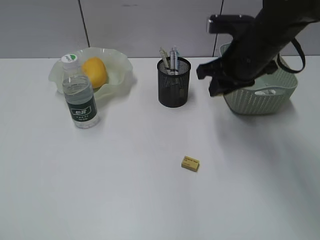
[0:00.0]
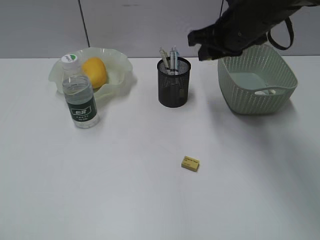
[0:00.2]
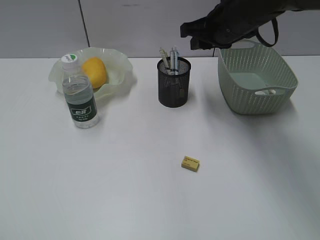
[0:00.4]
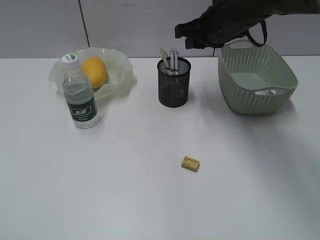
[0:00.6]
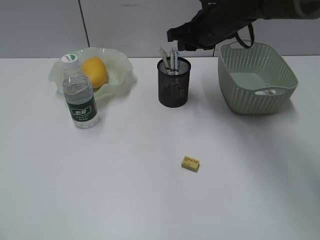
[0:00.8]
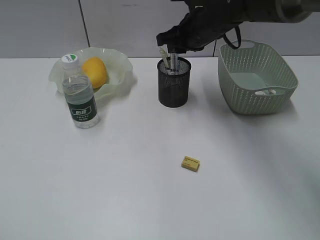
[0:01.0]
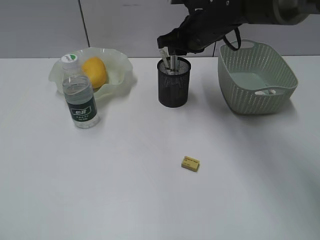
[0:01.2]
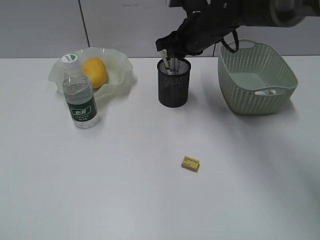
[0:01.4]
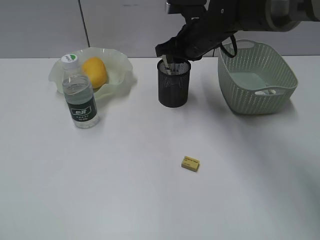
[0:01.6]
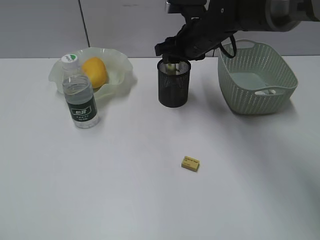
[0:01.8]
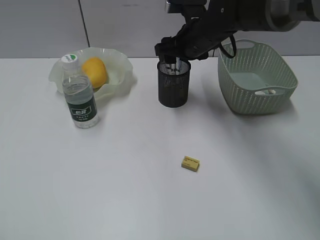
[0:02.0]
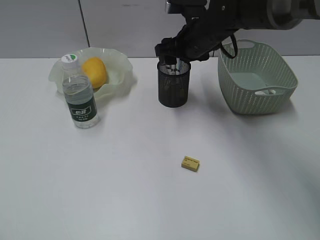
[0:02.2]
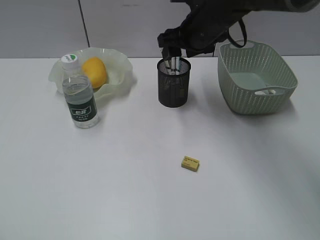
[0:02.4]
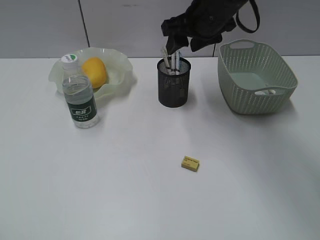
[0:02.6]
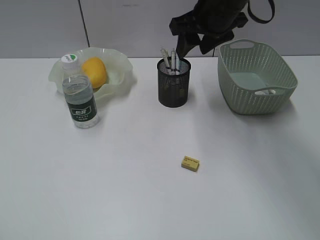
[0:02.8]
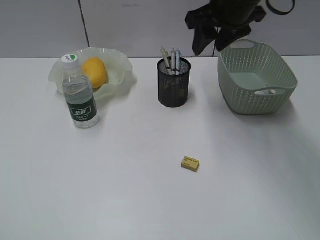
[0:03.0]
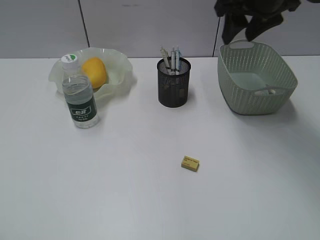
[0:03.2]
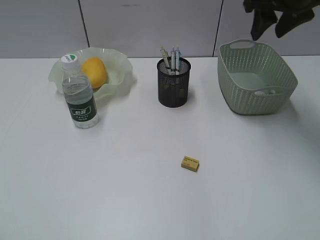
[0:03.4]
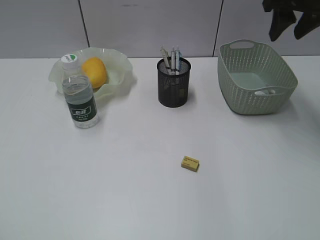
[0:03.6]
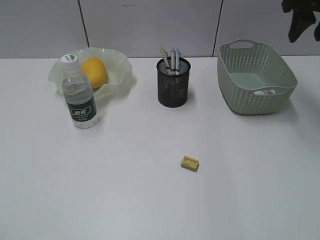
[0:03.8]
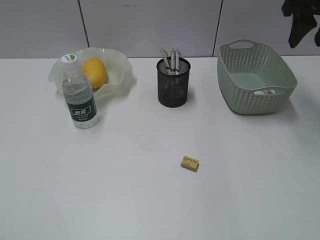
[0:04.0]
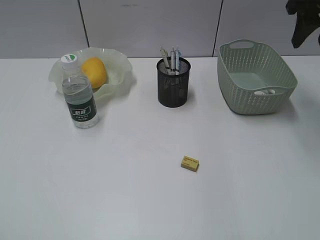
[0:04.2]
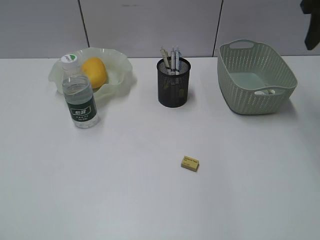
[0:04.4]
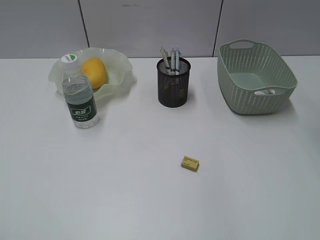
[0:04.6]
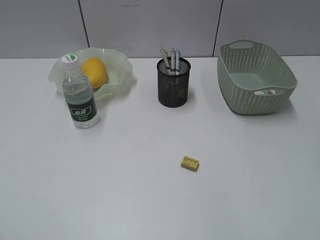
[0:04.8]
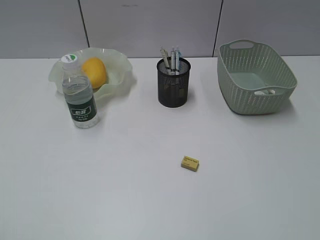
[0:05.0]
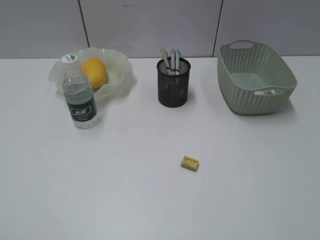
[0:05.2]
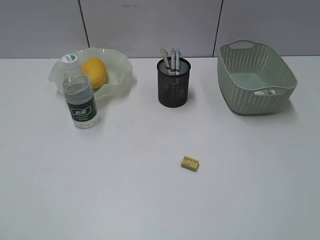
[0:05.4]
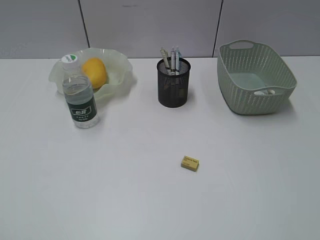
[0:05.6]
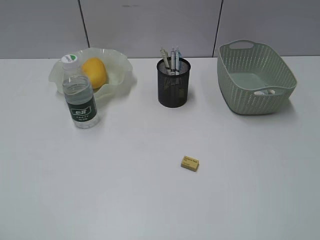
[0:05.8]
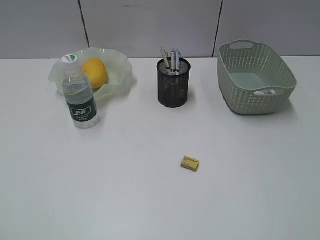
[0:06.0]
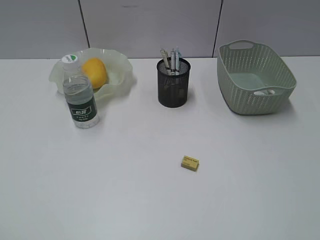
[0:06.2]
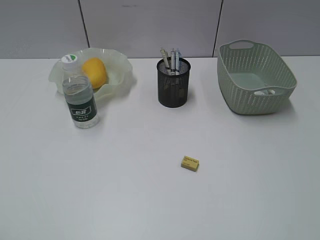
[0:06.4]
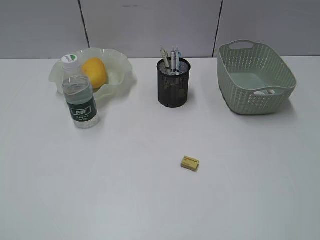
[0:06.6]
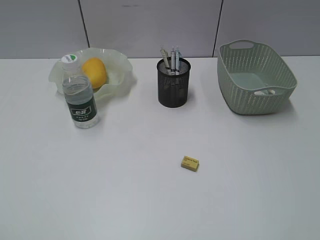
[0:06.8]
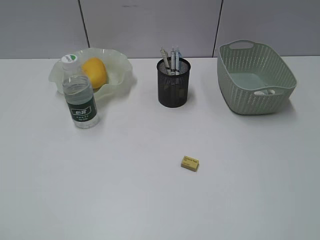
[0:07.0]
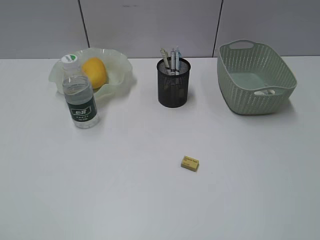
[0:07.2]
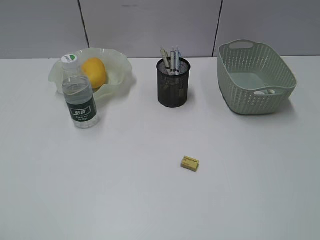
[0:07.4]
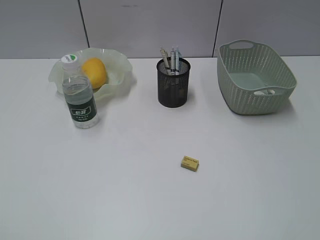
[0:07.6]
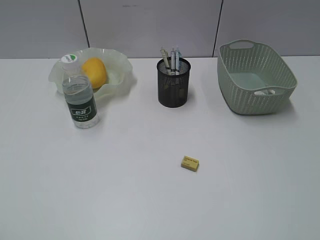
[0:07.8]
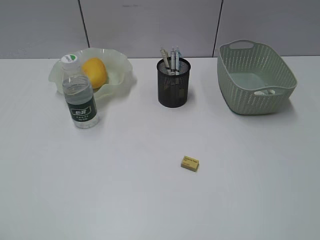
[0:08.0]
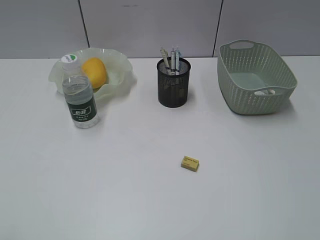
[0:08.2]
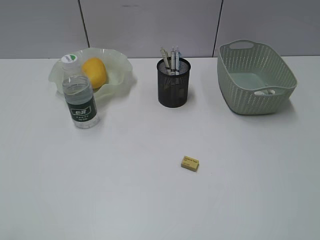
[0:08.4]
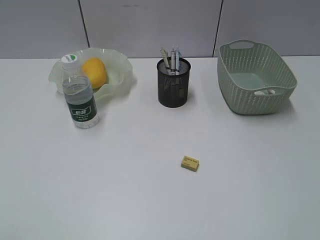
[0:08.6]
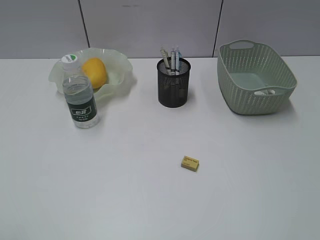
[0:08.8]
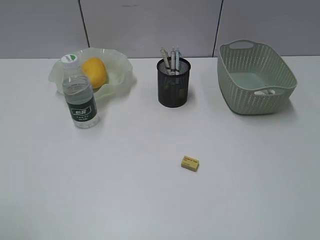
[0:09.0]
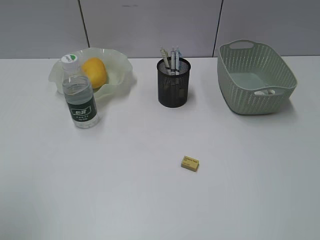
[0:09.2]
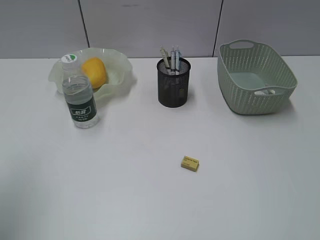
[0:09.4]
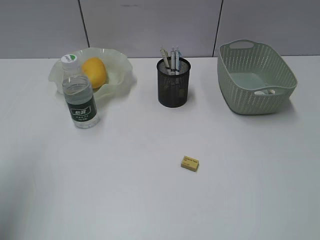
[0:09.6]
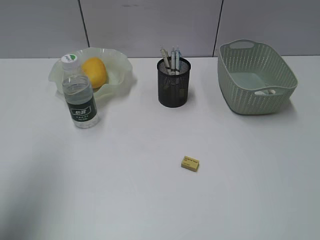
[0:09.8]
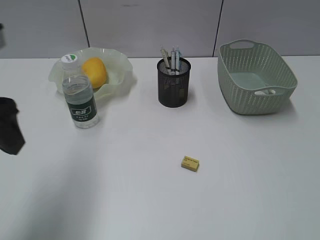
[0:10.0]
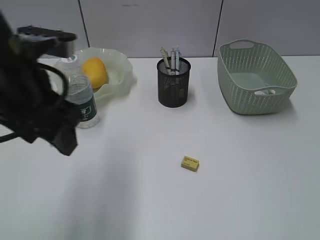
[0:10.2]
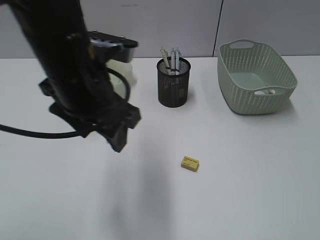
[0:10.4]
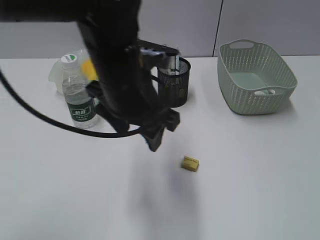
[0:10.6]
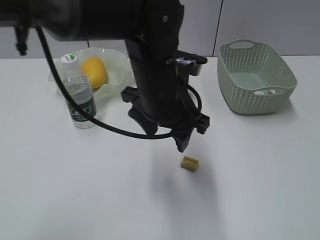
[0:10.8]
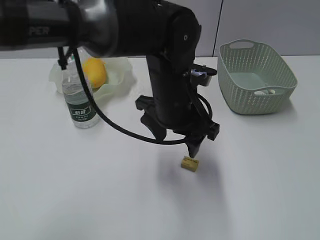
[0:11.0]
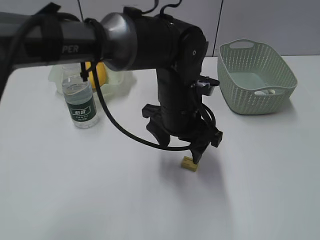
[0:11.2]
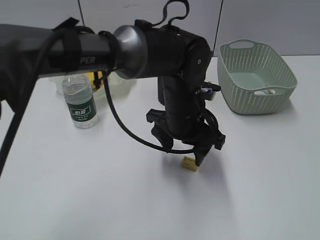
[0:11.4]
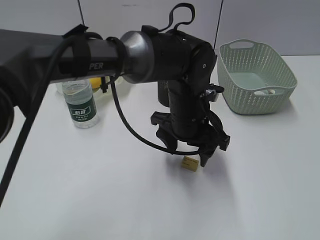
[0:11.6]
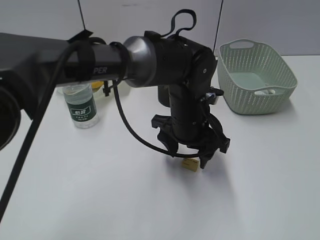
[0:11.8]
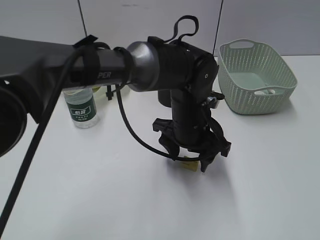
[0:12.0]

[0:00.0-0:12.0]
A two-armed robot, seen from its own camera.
Step, 0:00.0 to 0:02.0: Place the eraser in pen holder with right gripper.
0:00.0 to 0:01.6: The right gripper shifts approximately 10 cm forward and to the left.
0:01.6 to 0:03.0: The right gripper travels upward by about 10 cm, and opens its fingers.
0:03.0 to 0:04.4: The right gripper travels to the right by some 15 cm.
0:04.4 to 0:06.0: The right gripper moves backward, about 35 cm.
0:06.0 to 0:07.6: The two grippers keep their place.
0:09.0 to 0:10.4: The left gripper travels forward and to the right by approximately 30 cm.
0:10.4 to 0:12.0: The left gripper shifts some 20 cm to the right and downward.

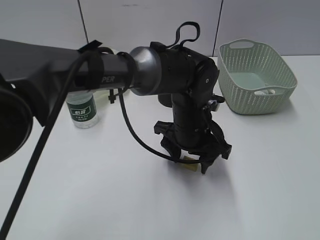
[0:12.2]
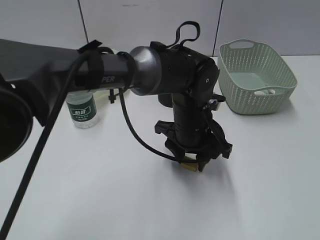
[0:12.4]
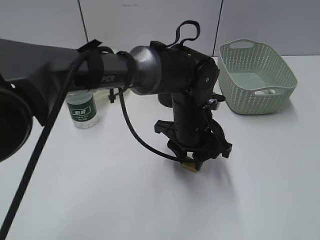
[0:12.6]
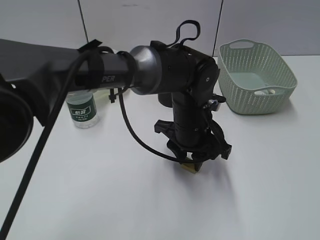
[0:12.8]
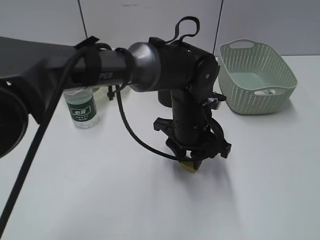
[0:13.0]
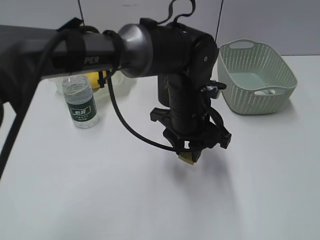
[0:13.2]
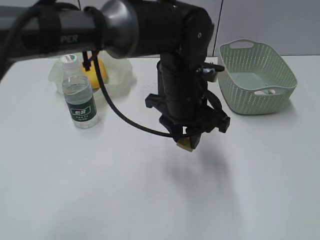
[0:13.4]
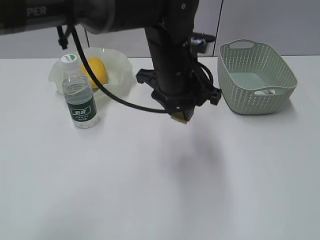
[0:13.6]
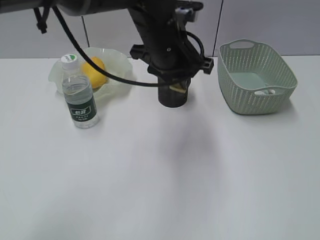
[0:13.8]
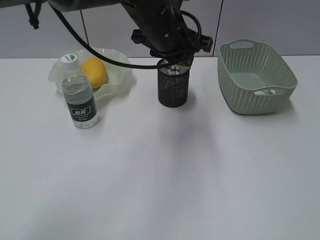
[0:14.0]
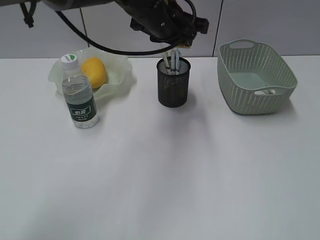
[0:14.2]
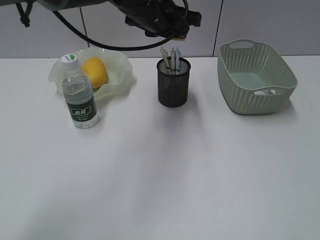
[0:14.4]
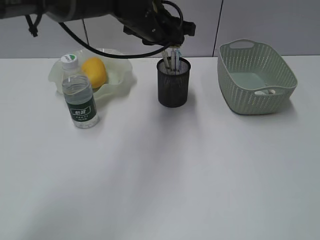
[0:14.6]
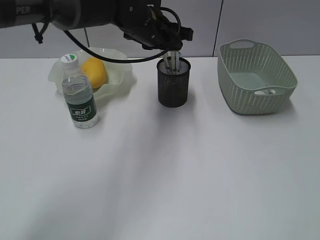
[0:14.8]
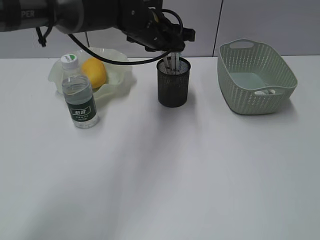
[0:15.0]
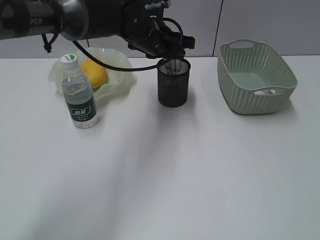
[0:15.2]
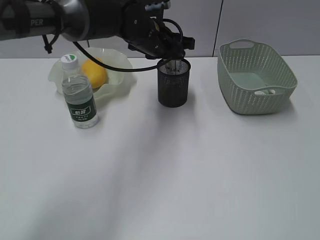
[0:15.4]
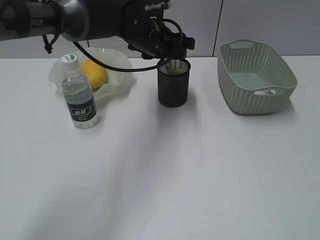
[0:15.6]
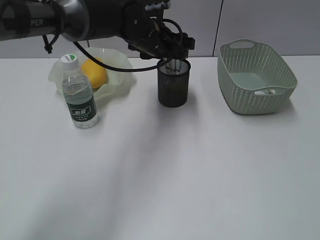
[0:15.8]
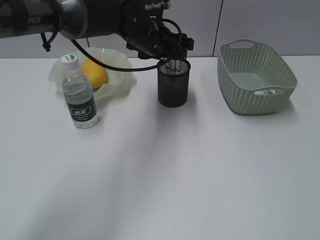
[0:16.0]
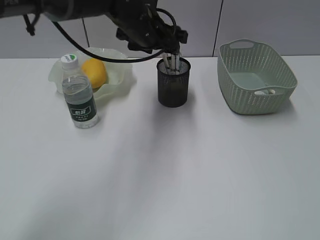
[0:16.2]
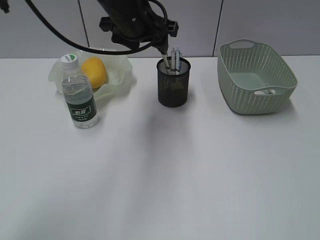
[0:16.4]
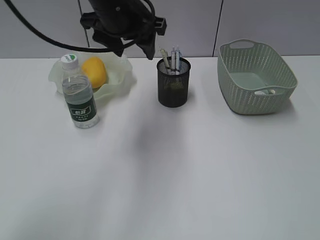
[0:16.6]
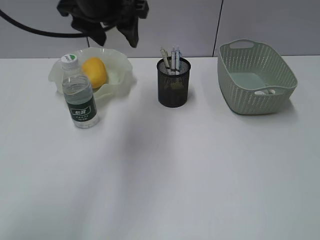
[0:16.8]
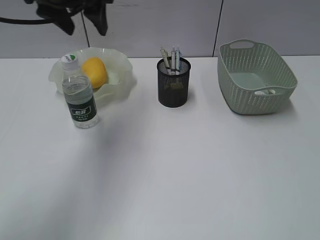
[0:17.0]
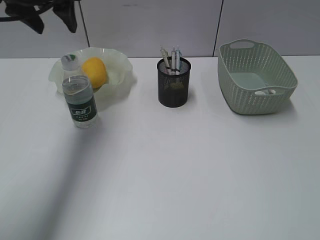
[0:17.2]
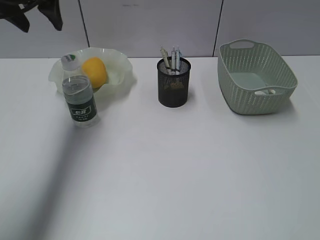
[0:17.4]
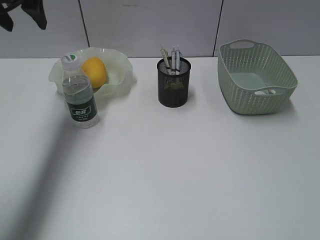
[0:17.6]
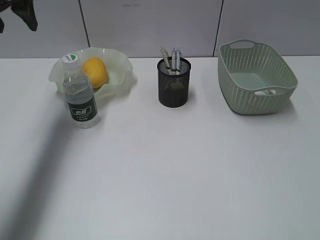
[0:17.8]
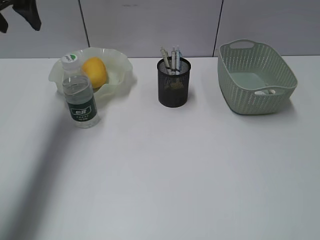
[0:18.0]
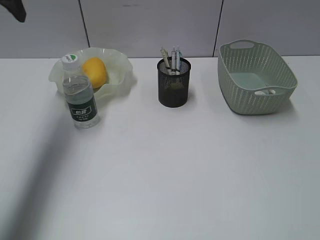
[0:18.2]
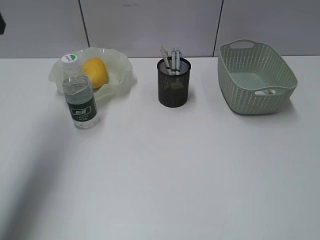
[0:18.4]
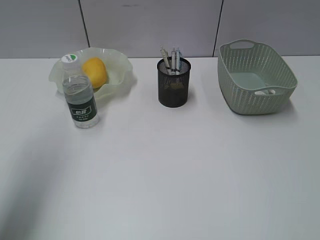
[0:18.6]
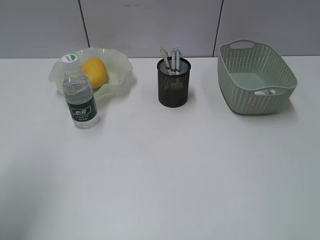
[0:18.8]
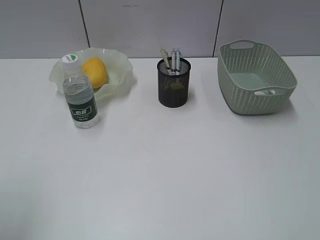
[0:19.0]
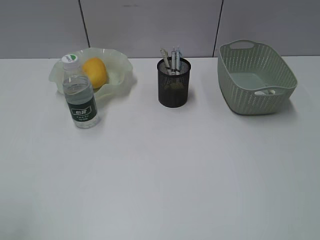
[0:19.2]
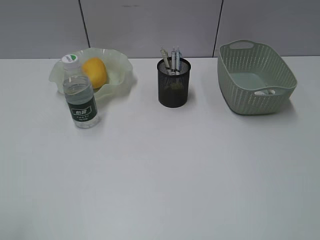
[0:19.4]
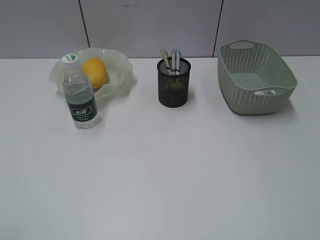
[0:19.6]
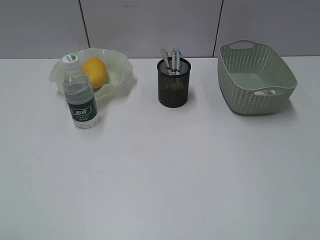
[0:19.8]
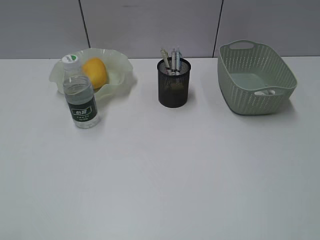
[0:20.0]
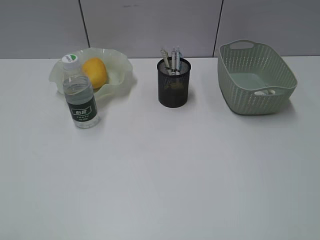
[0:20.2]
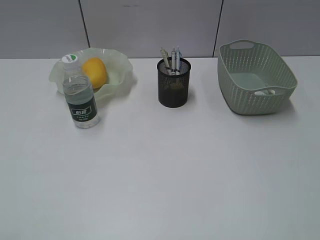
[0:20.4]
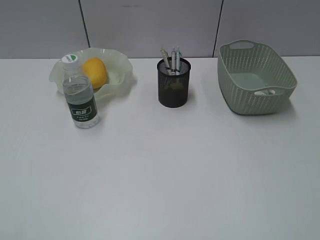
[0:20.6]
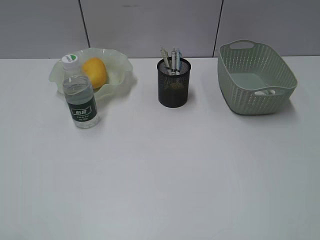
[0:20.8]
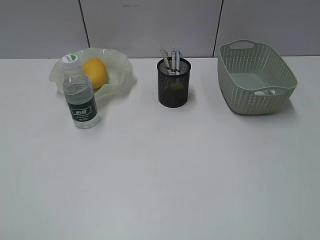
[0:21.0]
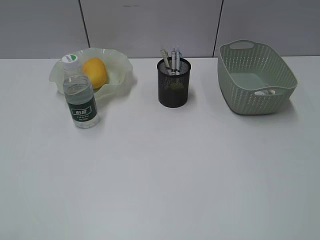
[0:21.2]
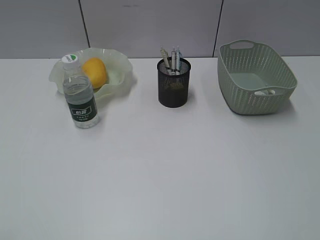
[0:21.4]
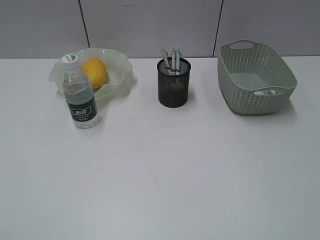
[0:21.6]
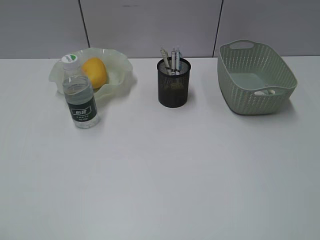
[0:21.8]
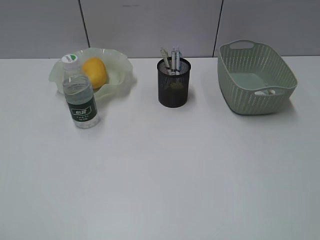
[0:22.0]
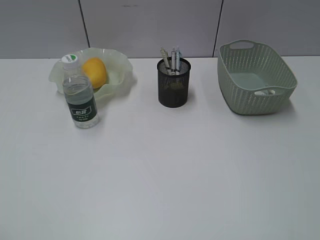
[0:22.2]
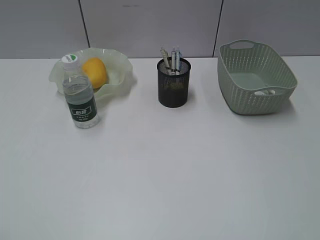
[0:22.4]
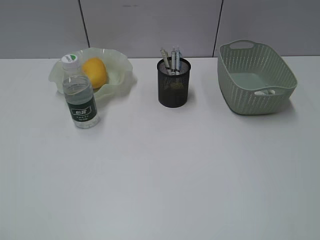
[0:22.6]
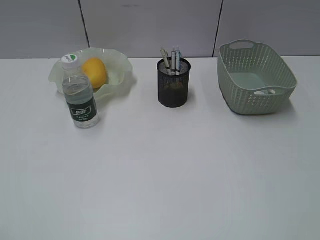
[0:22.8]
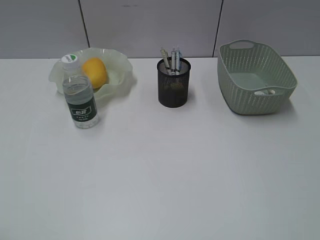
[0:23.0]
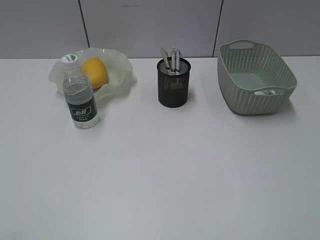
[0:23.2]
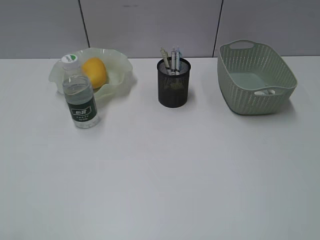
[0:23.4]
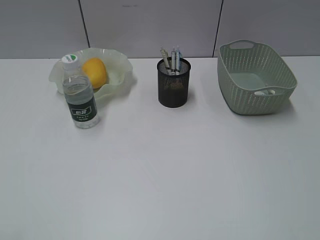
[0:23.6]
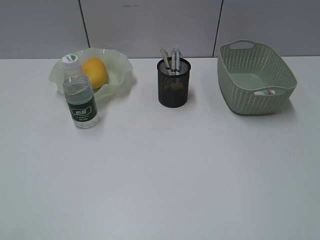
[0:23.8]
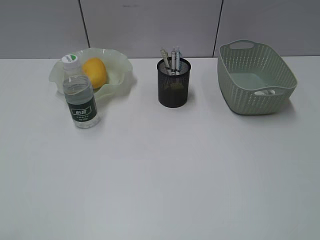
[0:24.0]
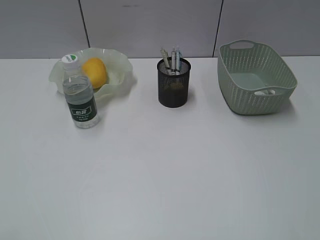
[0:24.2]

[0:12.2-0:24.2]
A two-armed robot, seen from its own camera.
Step, 0:12.8 to 0:15.8: Place the eraser in pen holder with left gripper.
0:12.2 to 0:13.8: The left gripper is displaced upward by some 10 cm, and closes.
0:13.8 to 0:15.2: The left gripper moves forward, approximately 10 cm.
0:15.2 to 0:16.6: The left gripper is displaced upward and backward by about 10 cm, and opens.
0:16.6 to 0:18.2: The left gripper is displaced to the left by about 20 cm.
0:18.2 to 0:19.8: The left gripper goes some 40 cm backward.
0:19.8 to 0:21.2: Neither gripper changes place.
